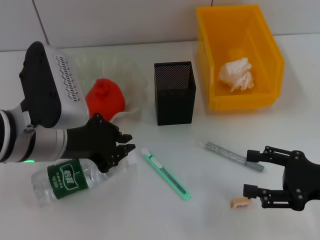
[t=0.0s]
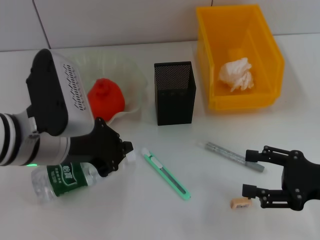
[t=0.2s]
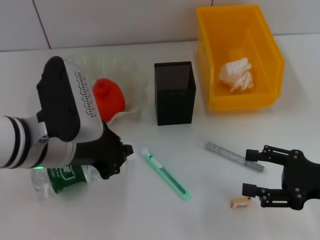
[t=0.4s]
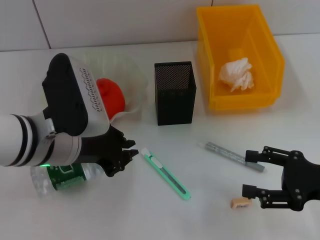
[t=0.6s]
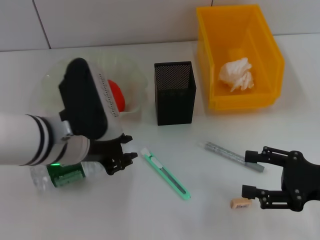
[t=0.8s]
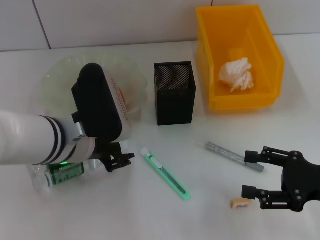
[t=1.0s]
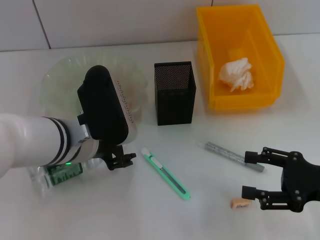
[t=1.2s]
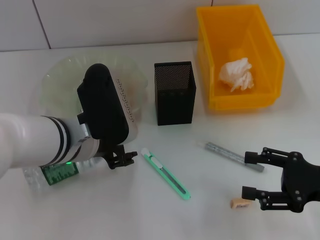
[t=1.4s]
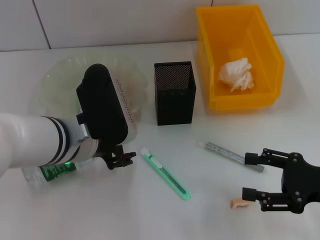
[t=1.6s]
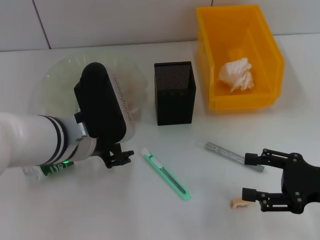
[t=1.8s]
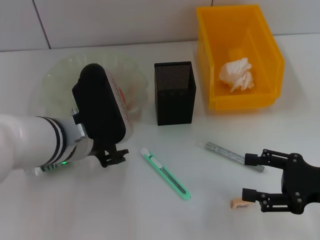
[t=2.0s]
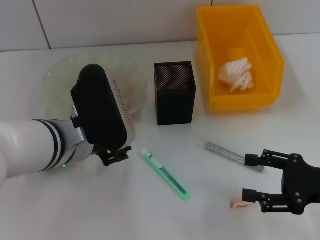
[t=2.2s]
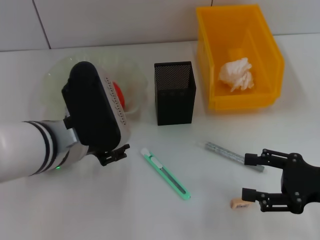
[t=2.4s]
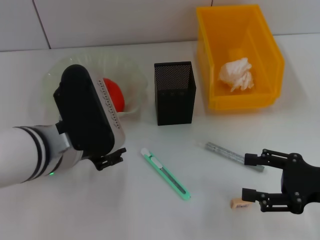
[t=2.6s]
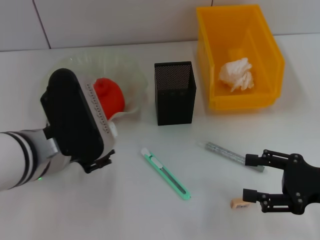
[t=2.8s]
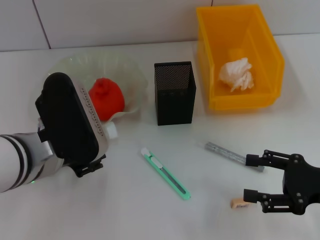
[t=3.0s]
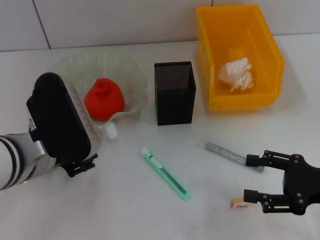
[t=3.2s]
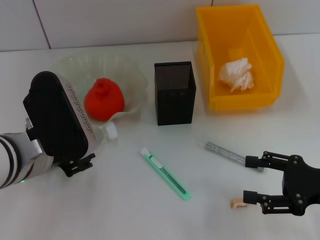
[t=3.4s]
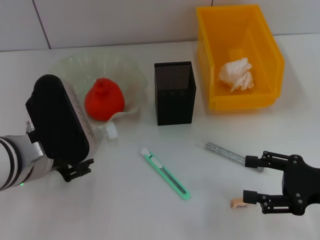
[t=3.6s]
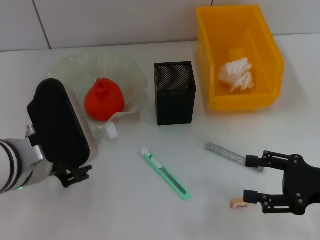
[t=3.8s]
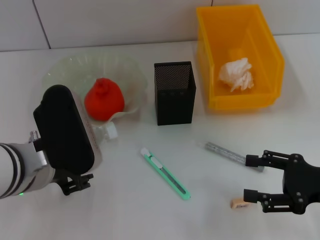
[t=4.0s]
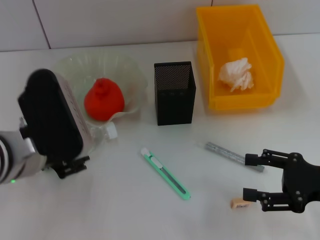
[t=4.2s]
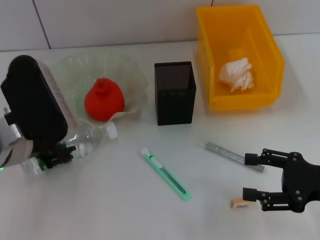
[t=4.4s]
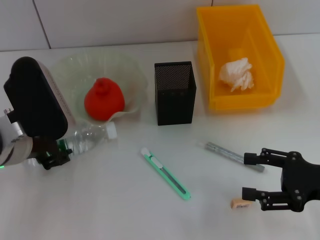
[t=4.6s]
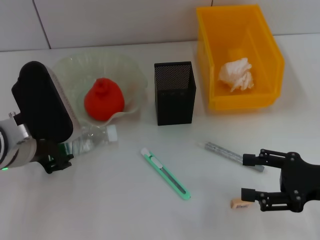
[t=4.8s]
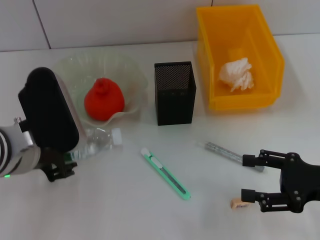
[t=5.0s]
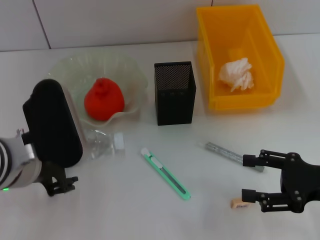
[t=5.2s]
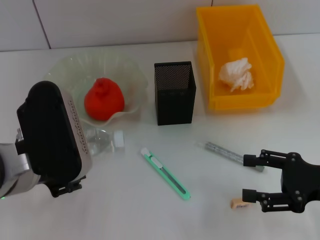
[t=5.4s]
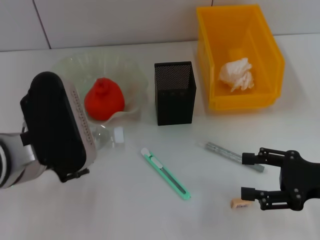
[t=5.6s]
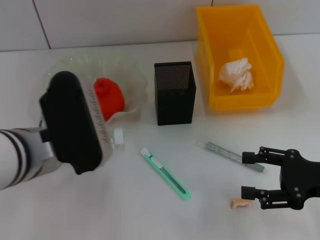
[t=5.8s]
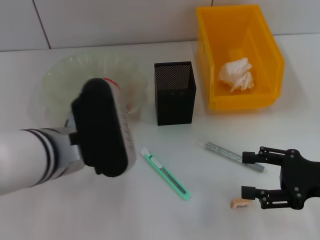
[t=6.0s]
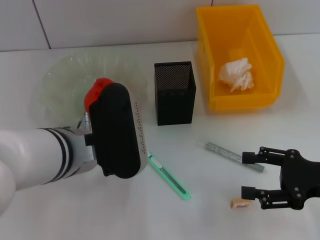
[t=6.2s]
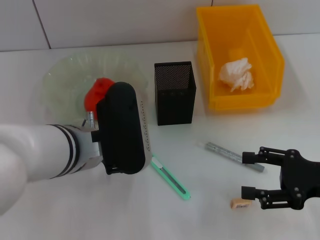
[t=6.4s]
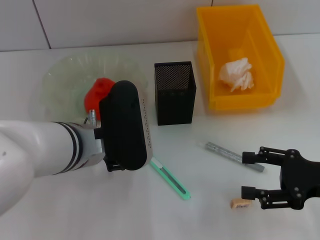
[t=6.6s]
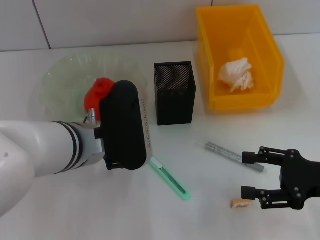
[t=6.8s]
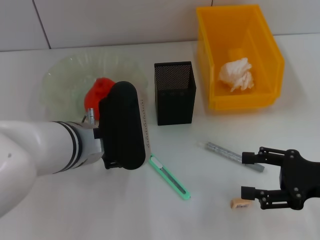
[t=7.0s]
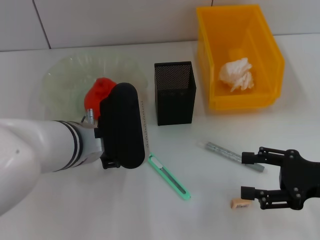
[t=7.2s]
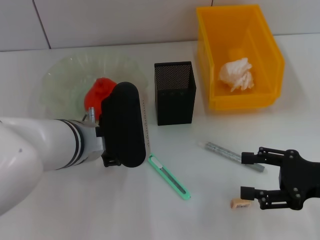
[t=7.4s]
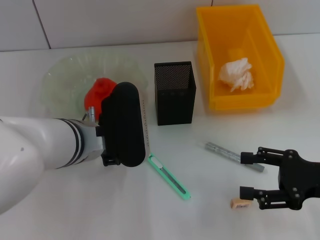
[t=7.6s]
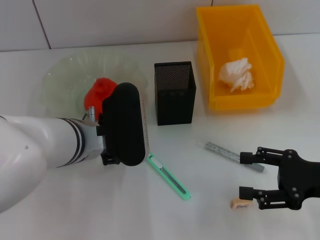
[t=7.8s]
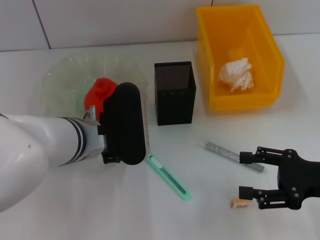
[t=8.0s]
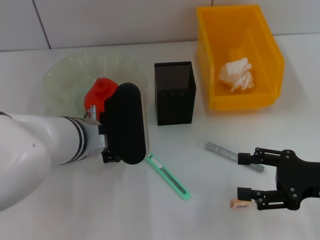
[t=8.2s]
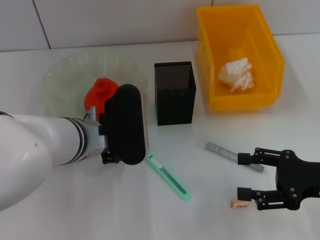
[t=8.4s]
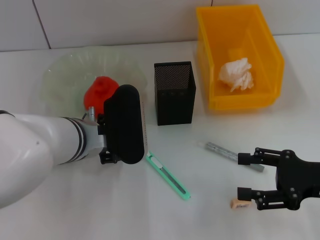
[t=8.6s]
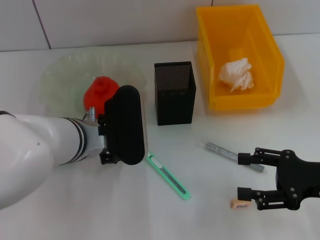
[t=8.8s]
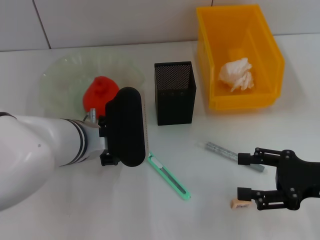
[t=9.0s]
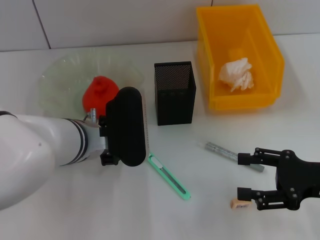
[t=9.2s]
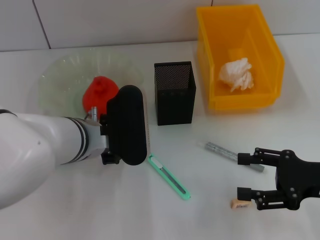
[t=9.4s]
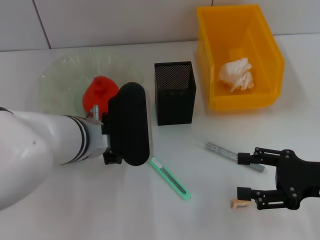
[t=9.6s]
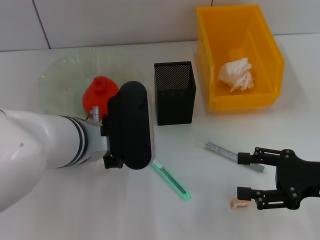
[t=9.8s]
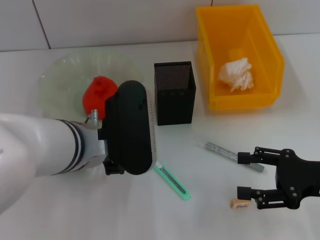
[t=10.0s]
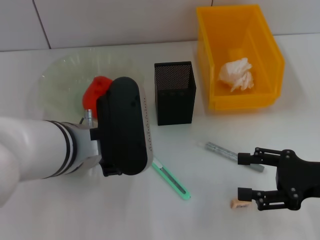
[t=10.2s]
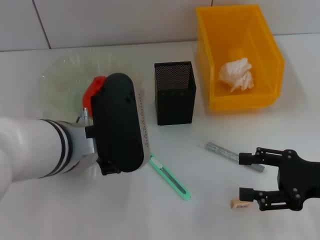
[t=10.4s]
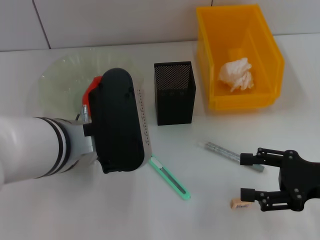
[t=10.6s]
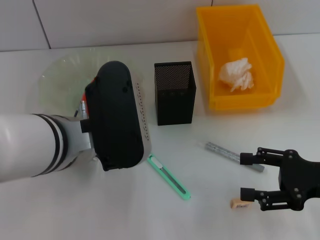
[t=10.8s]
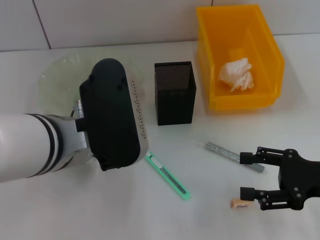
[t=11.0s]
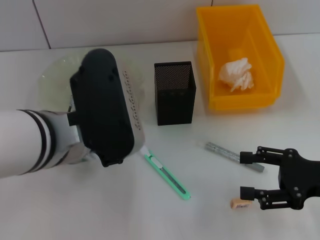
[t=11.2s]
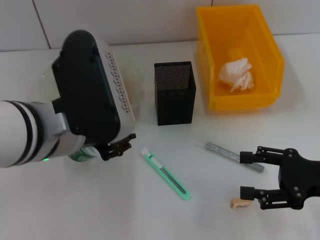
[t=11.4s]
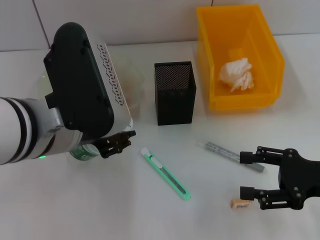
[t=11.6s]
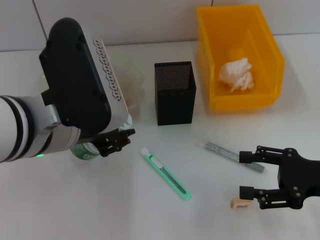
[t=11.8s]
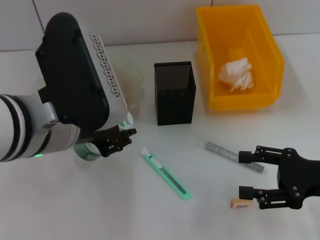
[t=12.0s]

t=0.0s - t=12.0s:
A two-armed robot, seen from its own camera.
t=0.0s - t=1.6s: The left gripper shifts by about 5 cm, and opens its fingers.
t=1.6s - t=3.0s: The left gripper shifts by about 5 cm.
t=3.0s - t=4.4s: The grippers stay close to where they were, moving slightly.
t=4.4s - t=6.0s: The left gripper is displaced to the right by some 5 cm.
t=6.0s - t=7.6s: The left gripper ends up some 5 cm from where it was.
t=7.6s - t=9.0s: There are only small adjustments of the grippers.
t=9.0s - t=10.4s: The left gripper travels upward by some 5 cm.
t=10.4s - t=12.0s: The left gripper shifts some 5 cm upward.

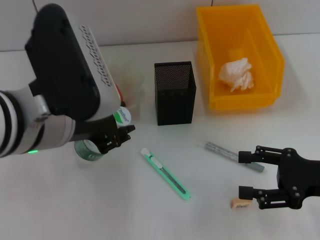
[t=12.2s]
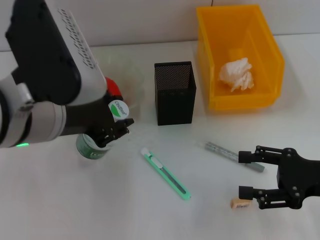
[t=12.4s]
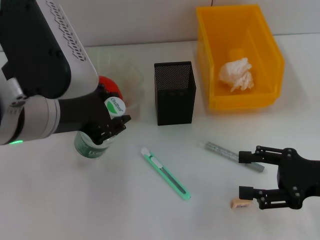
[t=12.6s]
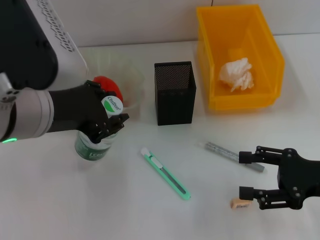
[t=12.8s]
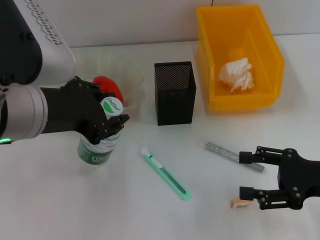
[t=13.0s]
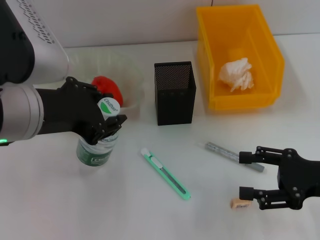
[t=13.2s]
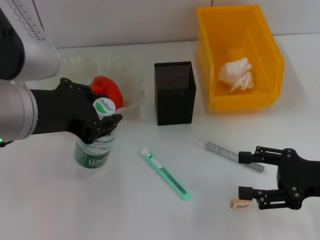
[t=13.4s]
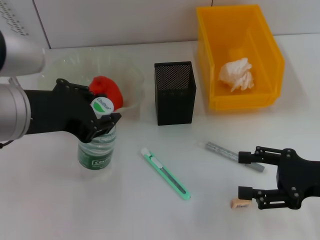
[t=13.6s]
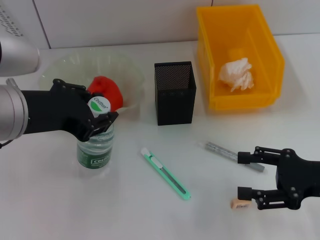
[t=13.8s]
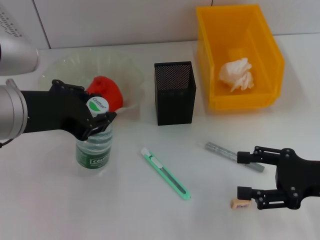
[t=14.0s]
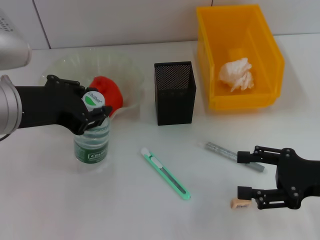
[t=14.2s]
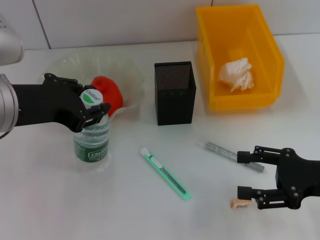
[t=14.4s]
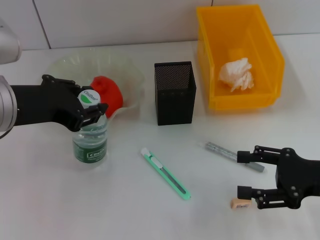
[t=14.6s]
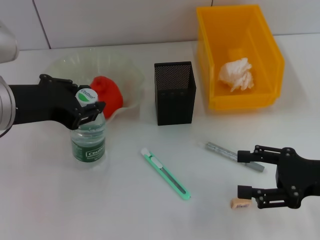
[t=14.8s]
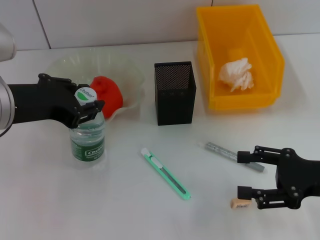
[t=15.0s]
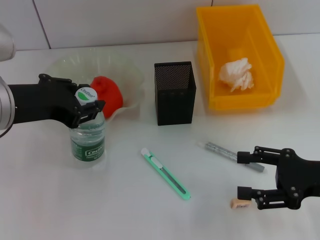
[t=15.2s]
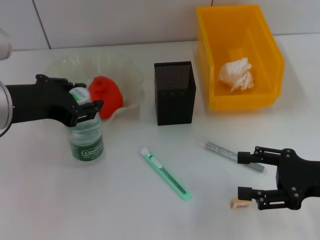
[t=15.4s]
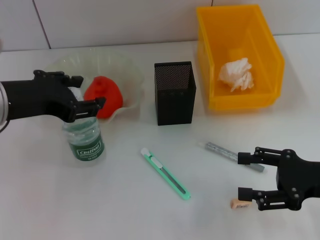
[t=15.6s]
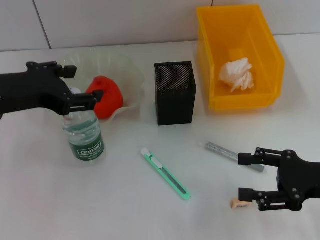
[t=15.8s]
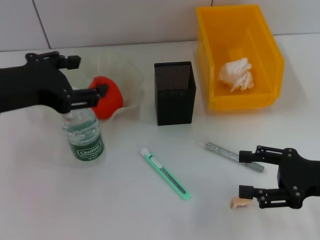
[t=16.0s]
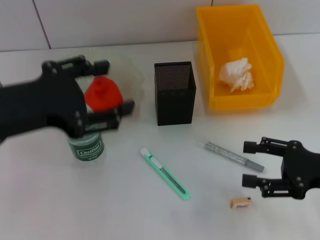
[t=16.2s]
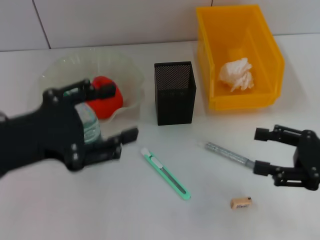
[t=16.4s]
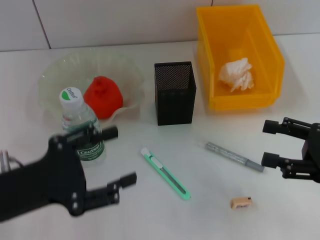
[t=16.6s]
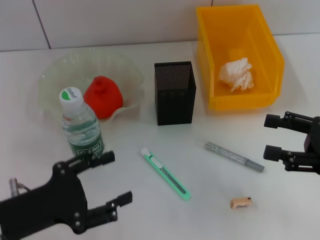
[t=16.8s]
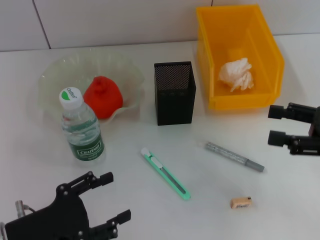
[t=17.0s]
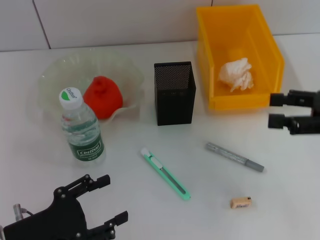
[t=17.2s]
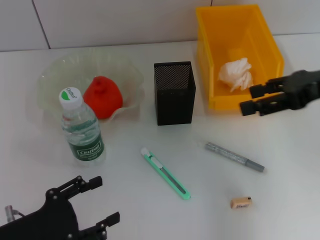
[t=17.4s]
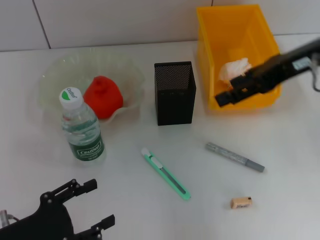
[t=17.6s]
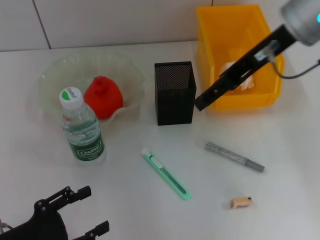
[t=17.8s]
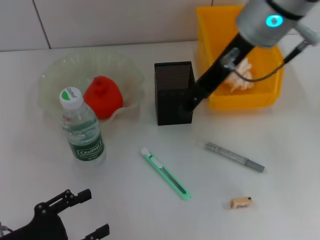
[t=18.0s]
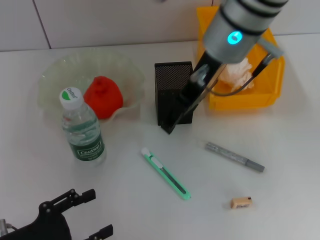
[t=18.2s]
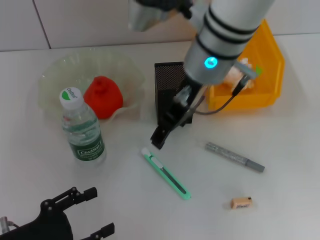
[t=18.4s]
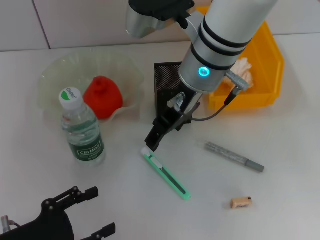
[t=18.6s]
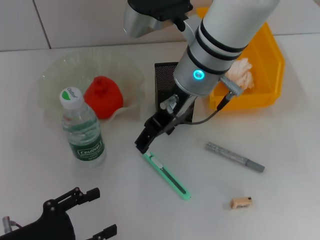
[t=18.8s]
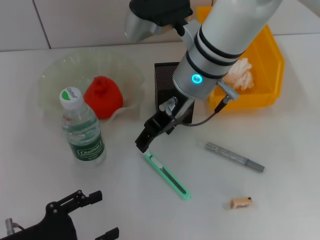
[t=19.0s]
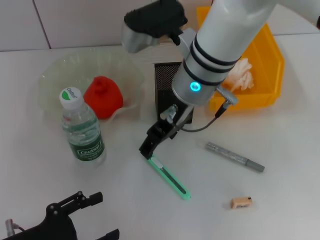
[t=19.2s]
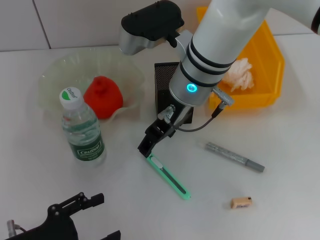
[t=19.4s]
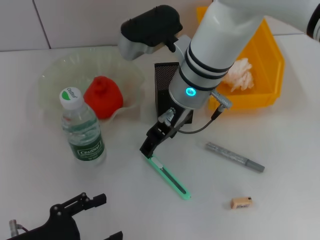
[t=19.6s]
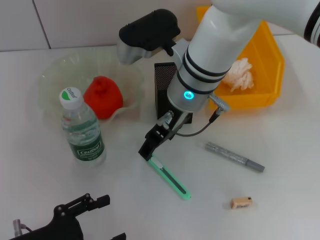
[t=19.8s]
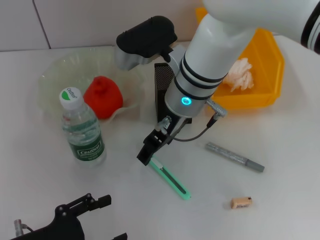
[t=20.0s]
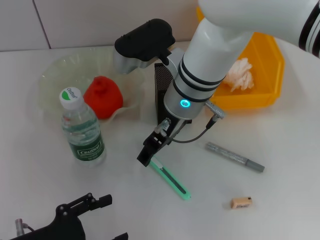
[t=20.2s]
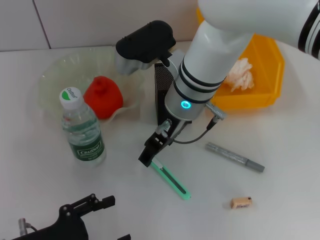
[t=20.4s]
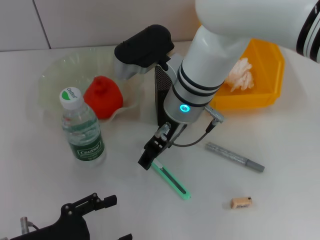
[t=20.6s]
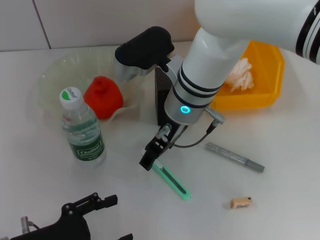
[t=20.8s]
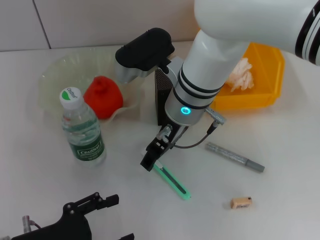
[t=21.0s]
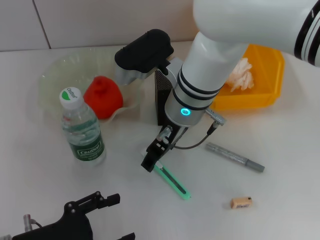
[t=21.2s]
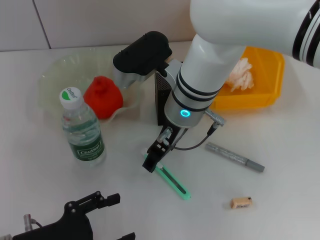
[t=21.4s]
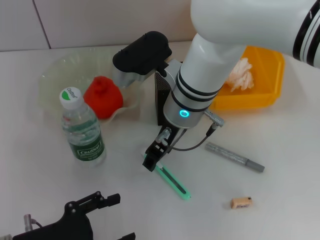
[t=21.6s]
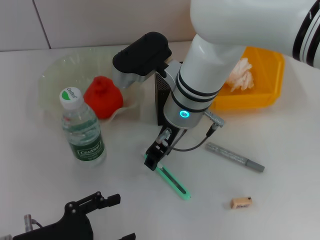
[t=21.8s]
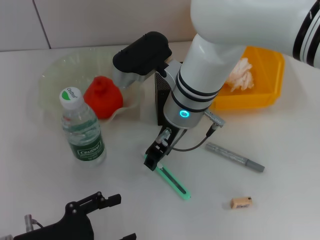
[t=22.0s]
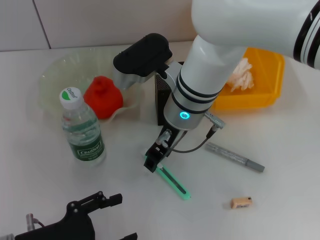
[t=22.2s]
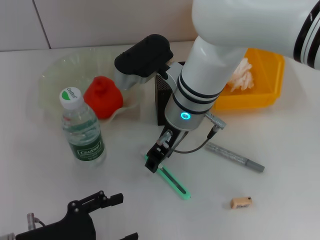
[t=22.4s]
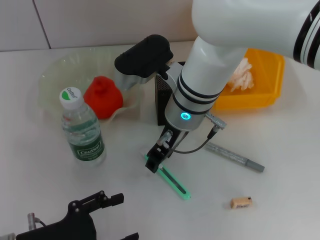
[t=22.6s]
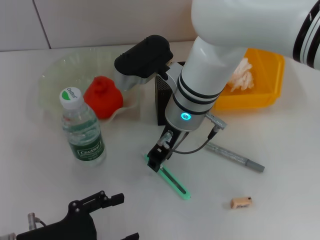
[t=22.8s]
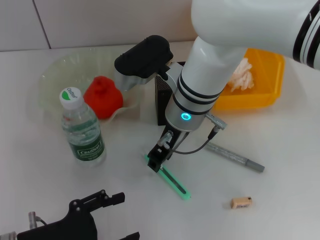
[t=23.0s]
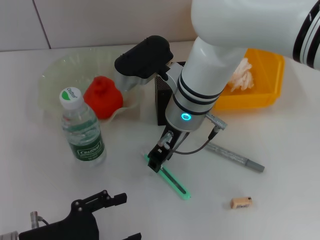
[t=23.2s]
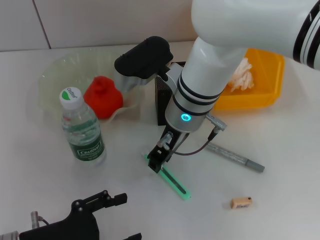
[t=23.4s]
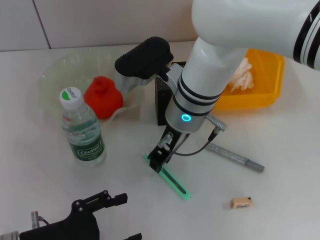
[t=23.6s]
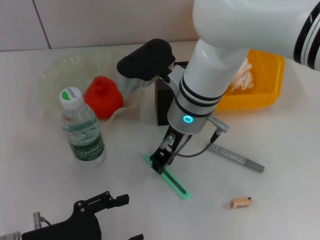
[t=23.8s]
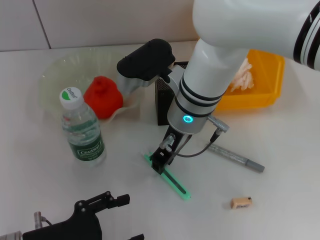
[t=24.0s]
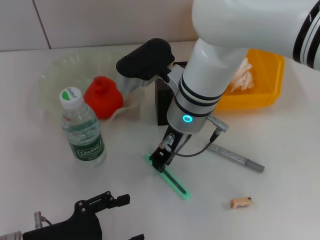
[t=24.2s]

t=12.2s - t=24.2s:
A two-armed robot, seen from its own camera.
Step, t=12.2s - t=15.6s: Place the water bottle on the table with the left hand.
t=12.2s - t=13.8s: The left gripper travels to the left by roughly 5 cm.
t=13.8s - t=15.2s: The grippers stay close to where they were, moving slightly.
t=15.2s - t=16.6s: The left gripper travels backward and downward by about 10 cm, and opens its fingers.
t=16.6s - t=18.2s: The left gripper shifts roughly 10 cm downward. The right gripper is displaced to the left, forward and upward by approximately 30 cm.
t=18.2s - t=19.8s: The right gripper is displaced downward by about 10 cm.
t=19.8s - t=21.2s: The grippers move only a little.
t=21.2s - t=22.6s: The right gripper closes up.
t=22.6s - t=24.2s: Both grippers stay put.
